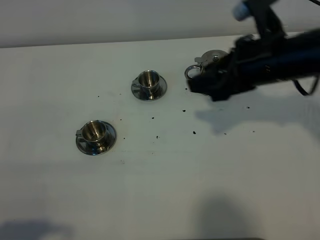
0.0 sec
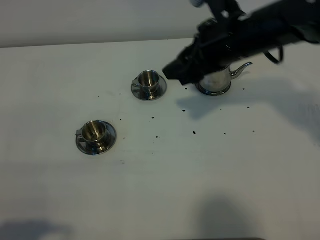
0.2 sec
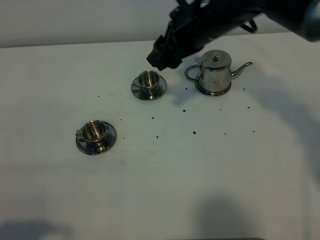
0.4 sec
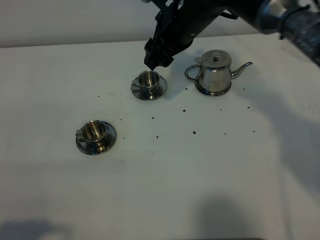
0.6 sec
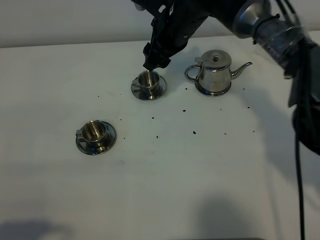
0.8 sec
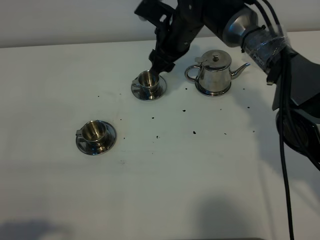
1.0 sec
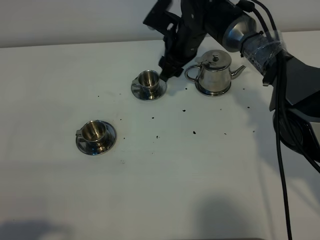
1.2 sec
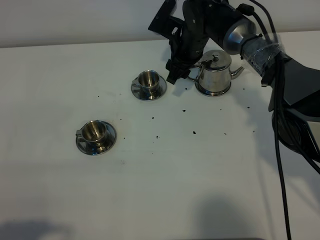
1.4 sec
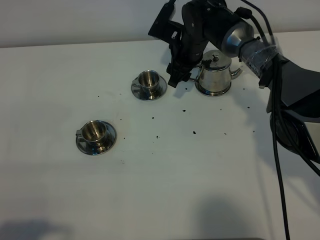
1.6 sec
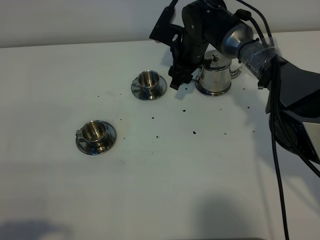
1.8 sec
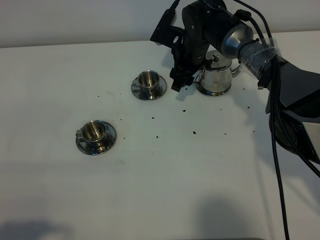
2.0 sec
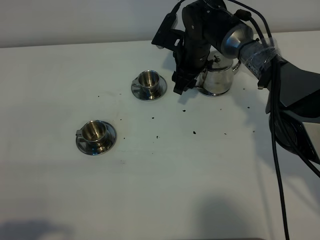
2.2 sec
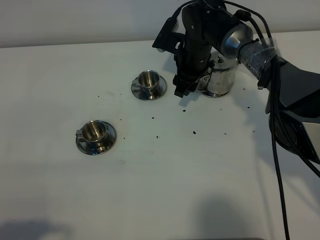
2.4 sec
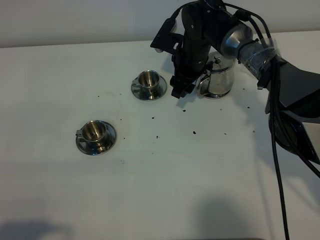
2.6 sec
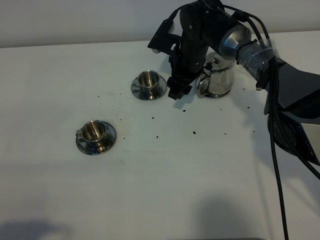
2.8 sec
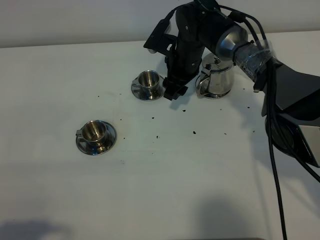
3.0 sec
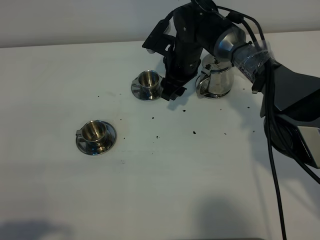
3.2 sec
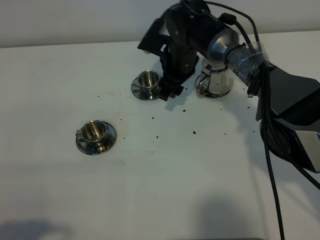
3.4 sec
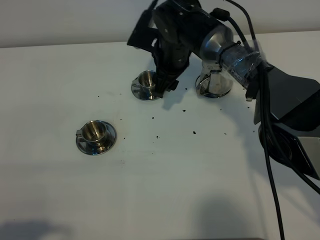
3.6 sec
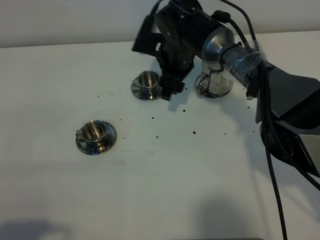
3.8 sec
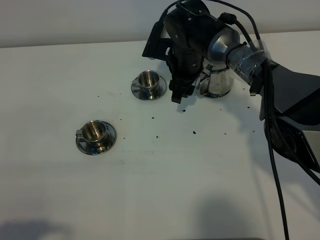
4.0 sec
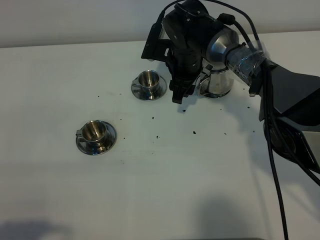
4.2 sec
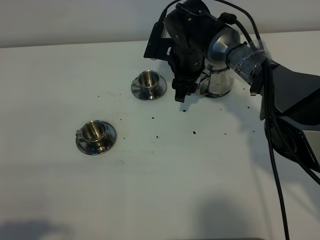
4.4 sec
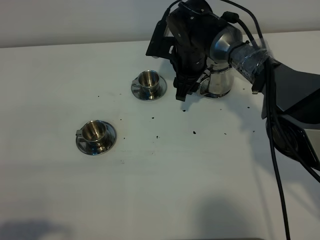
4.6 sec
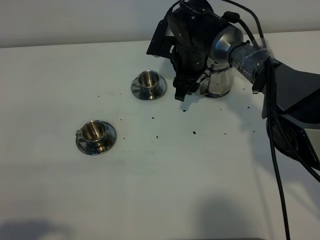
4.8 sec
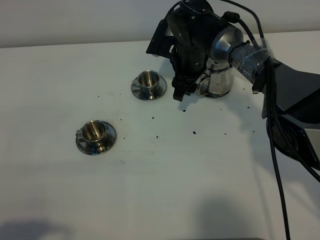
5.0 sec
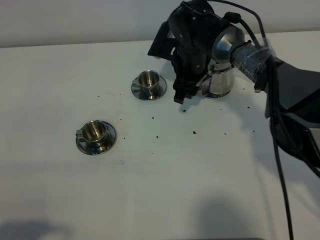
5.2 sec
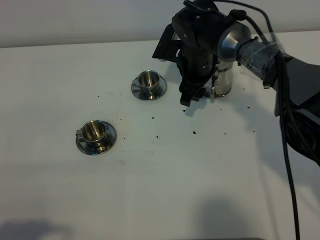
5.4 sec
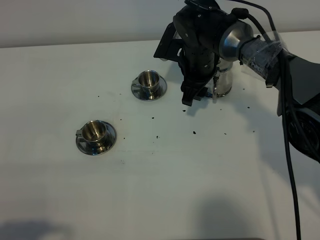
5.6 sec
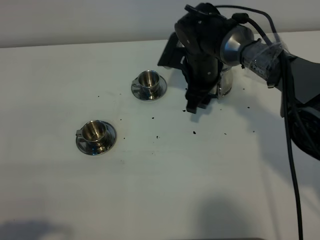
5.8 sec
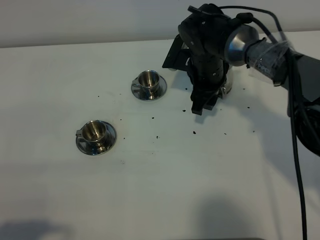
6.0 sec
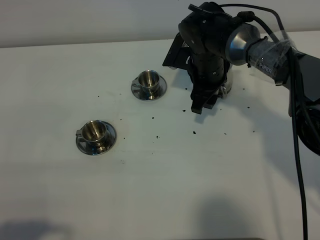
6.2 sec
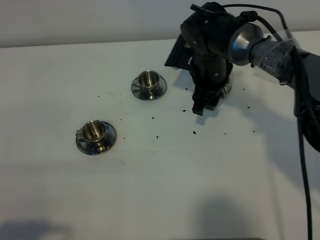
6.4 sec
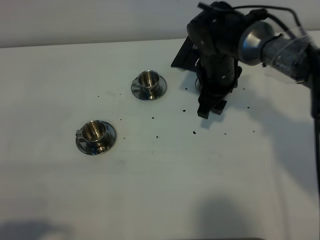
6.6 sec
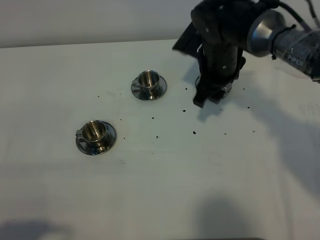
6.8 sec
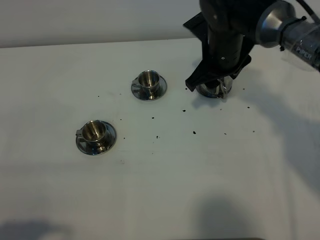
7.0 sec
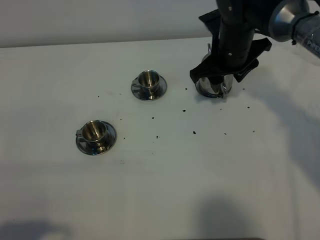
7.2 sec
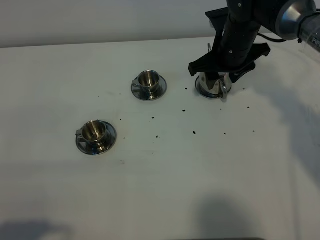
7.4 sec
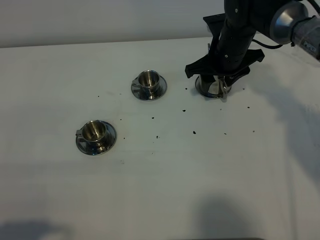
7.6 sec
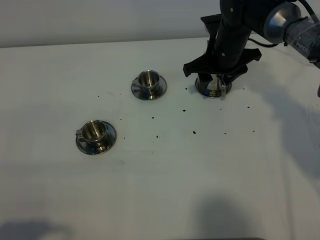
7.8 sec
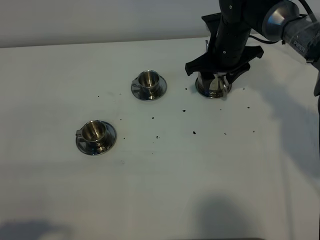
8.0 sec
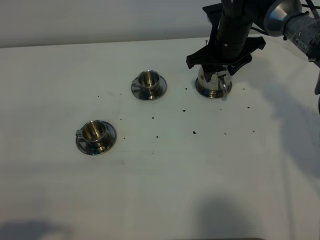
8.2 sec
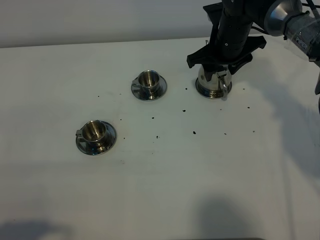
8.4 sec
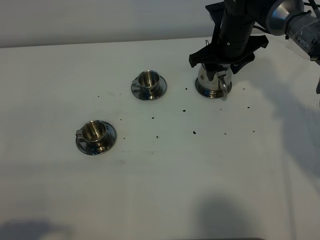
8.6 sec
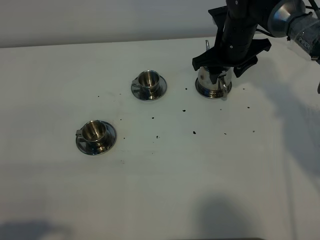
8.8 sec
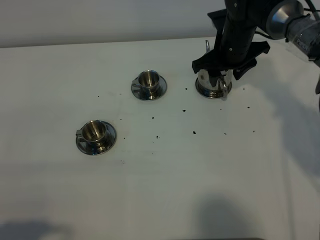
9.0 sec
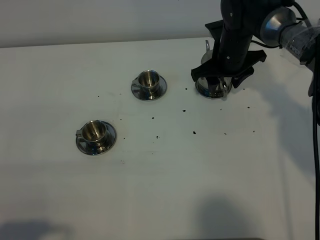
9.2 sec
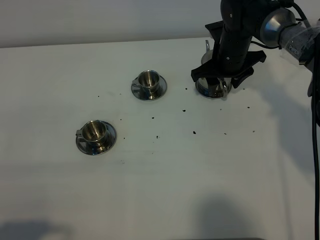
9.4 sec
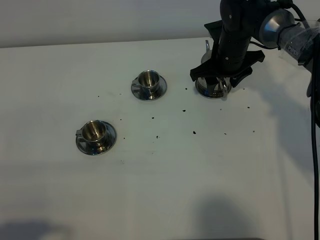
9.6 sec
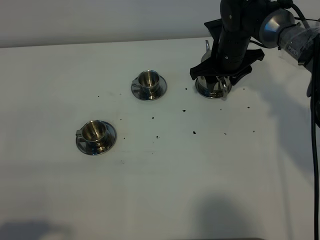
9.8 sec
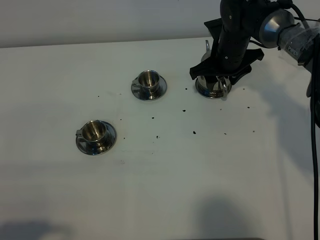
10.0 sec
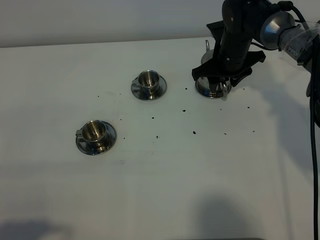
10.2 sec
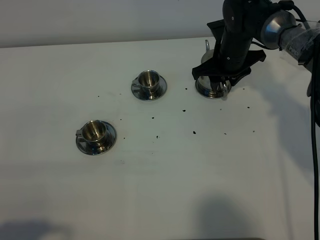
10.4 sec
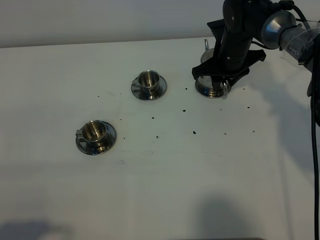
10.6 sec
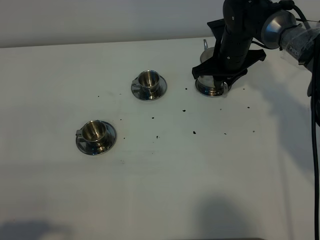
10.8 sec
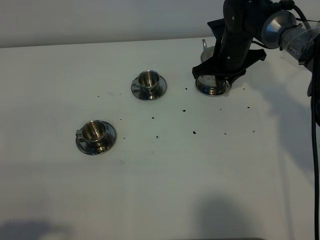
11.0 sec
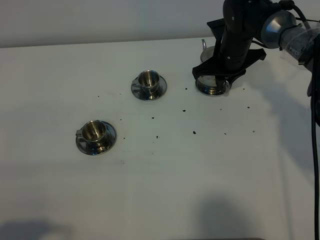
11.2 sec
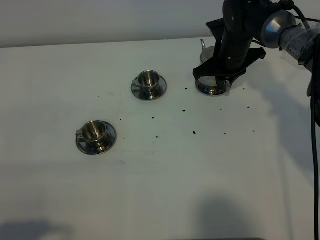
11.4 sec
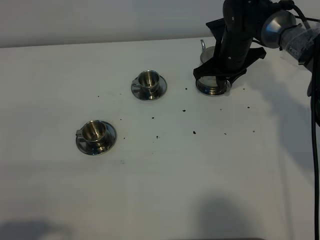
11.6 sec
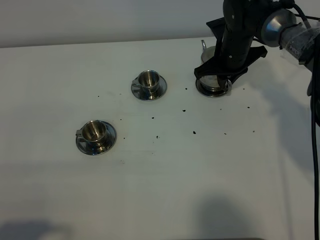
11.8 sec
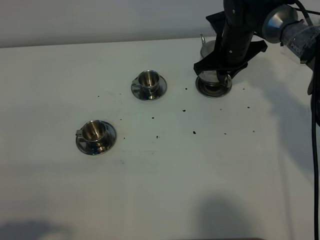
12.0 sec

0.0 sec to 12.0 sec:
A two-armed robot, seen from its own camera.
Task of the whole recording: grasp the stainless steel teapot and pour the tea into the two stainless steel teacups one by one, put the stainless steel teapot back in its original place.
Step, 0.0 sec to 11.8 sec: Pick up the teapot with the right gripper.
0.0 sec to 1.6 sec: The right gripper travels forward, downward and to the left by some 25 cm.
1.6 sec to 3.0 sec: The grippers make only small movements.
3.0 sec to 6.0 sec: There are only small adjustments of the grippers.
6.0 sec to 7.6 sec: The right gripper changes place by some 5 cm.
7.6 sec to 10.4 sec: There are only small adjustments of the grippers.
10.4 sec to 12.0 sec: The right gripper closes up.

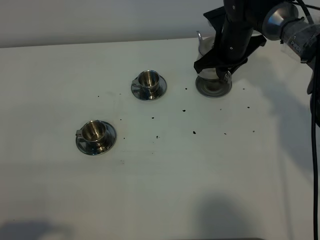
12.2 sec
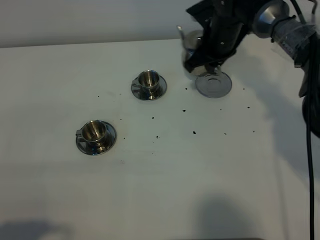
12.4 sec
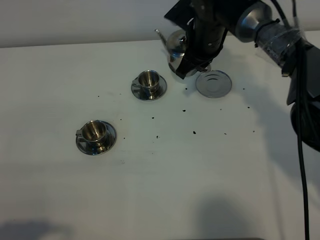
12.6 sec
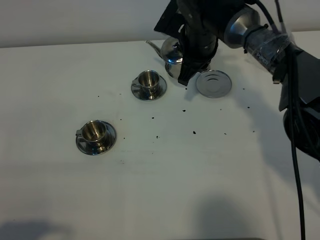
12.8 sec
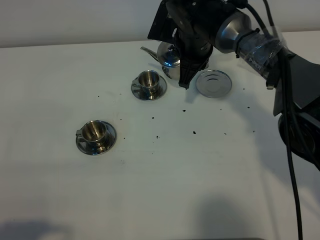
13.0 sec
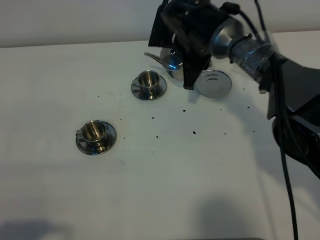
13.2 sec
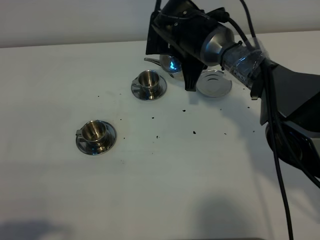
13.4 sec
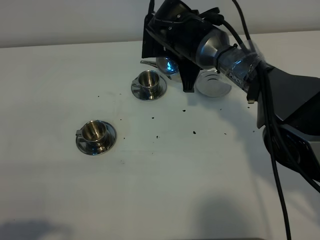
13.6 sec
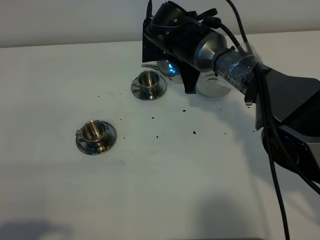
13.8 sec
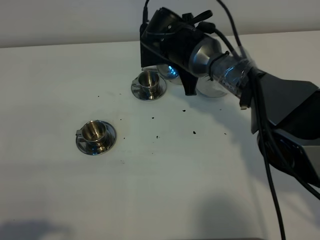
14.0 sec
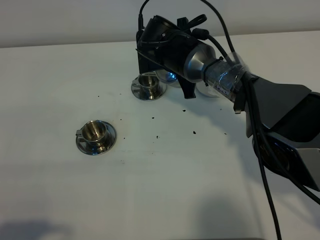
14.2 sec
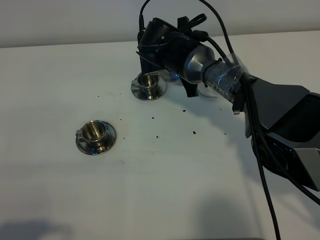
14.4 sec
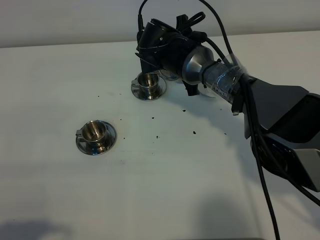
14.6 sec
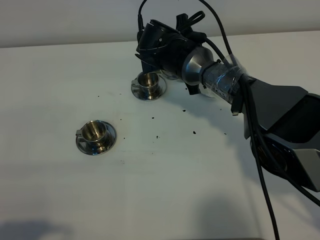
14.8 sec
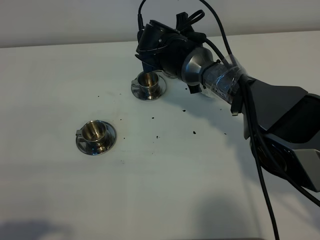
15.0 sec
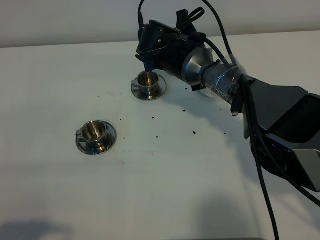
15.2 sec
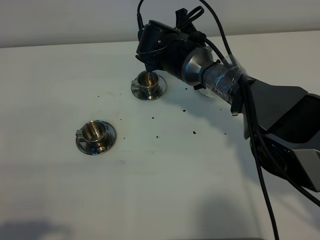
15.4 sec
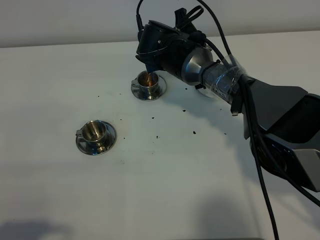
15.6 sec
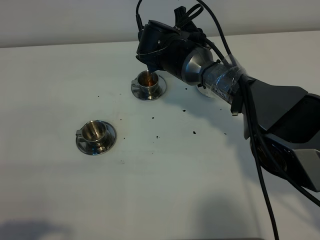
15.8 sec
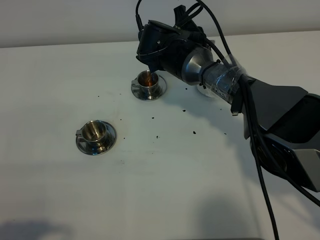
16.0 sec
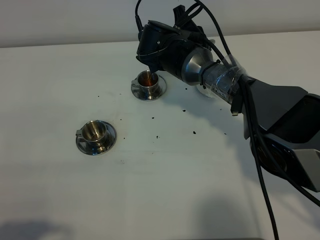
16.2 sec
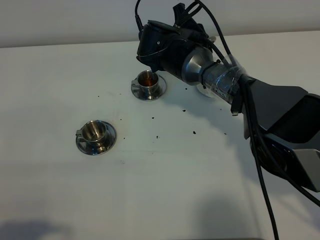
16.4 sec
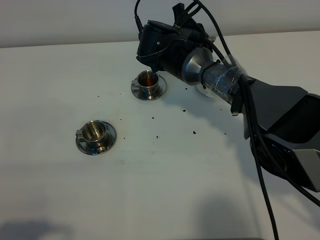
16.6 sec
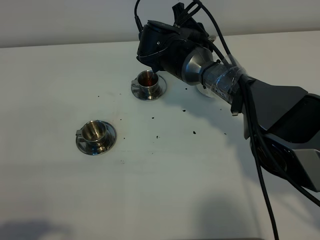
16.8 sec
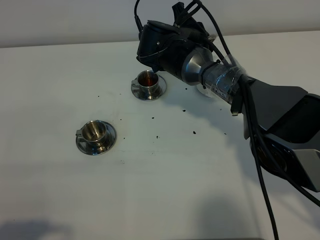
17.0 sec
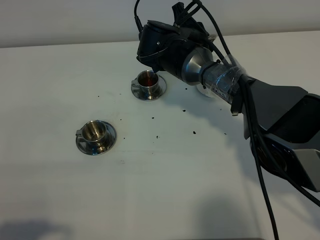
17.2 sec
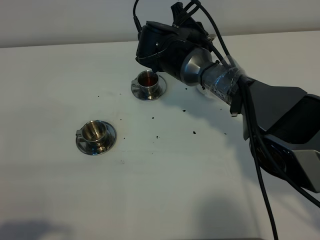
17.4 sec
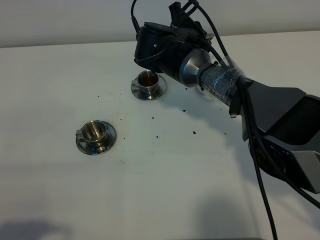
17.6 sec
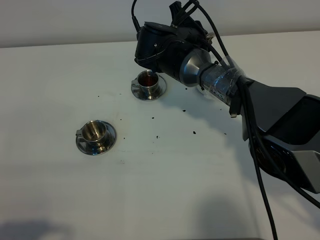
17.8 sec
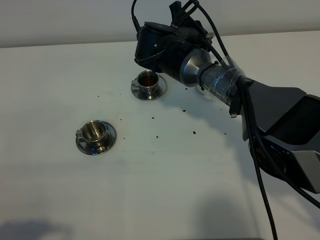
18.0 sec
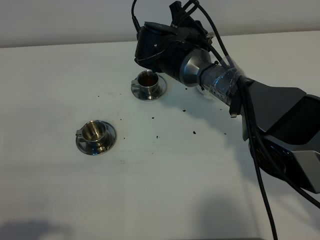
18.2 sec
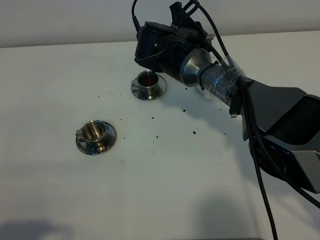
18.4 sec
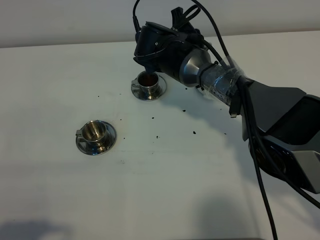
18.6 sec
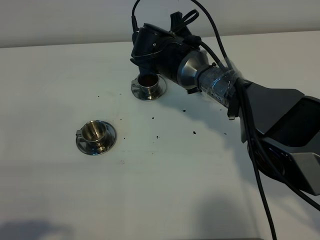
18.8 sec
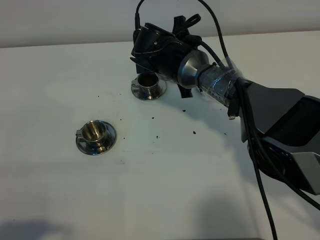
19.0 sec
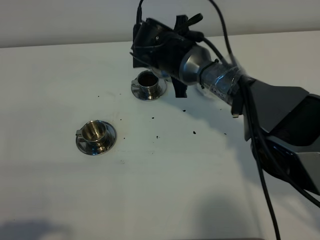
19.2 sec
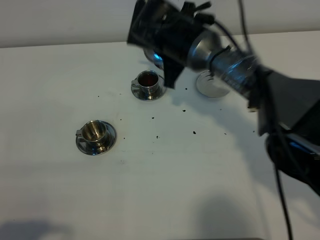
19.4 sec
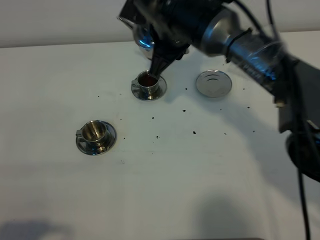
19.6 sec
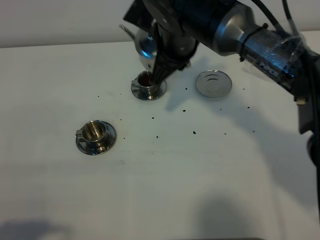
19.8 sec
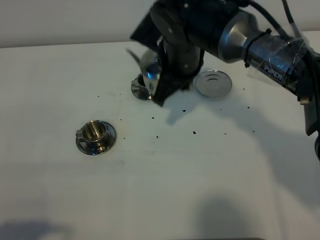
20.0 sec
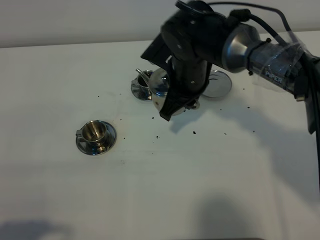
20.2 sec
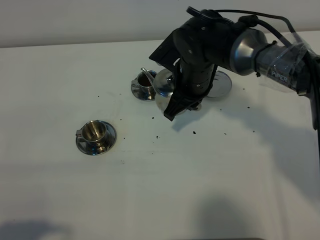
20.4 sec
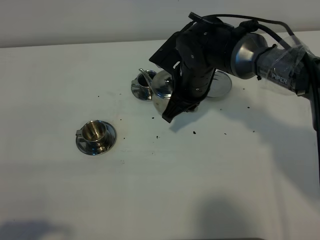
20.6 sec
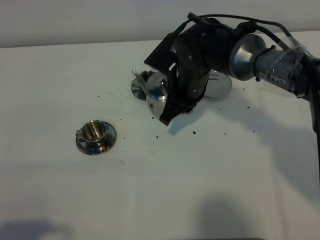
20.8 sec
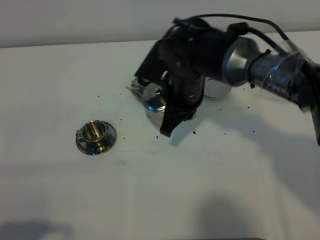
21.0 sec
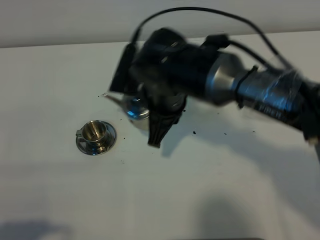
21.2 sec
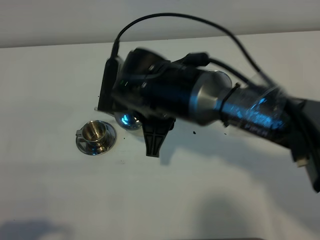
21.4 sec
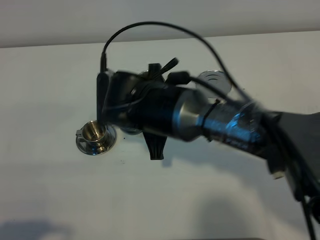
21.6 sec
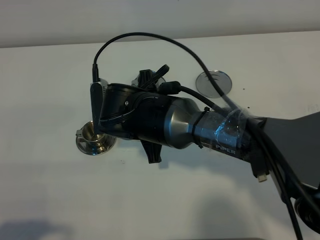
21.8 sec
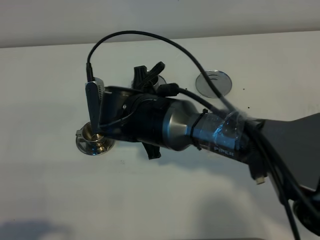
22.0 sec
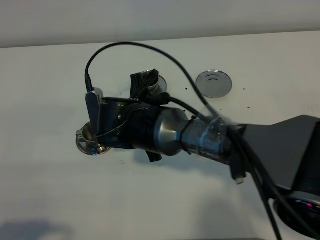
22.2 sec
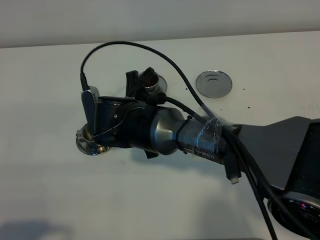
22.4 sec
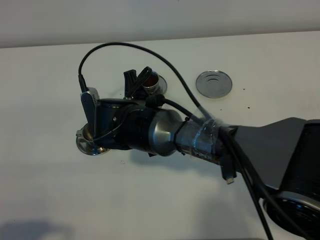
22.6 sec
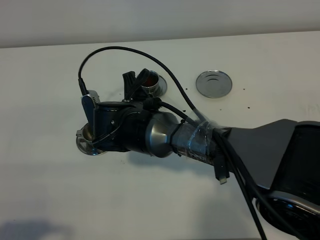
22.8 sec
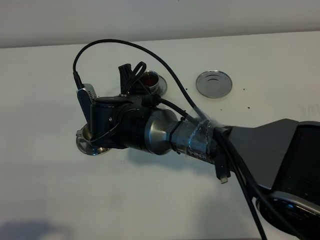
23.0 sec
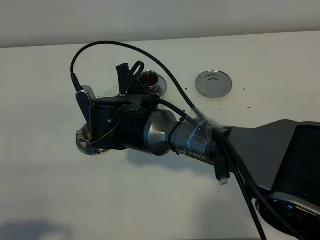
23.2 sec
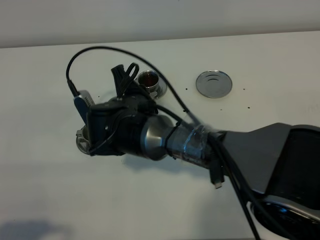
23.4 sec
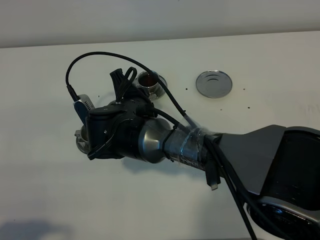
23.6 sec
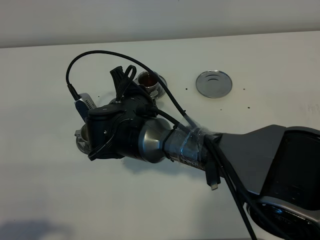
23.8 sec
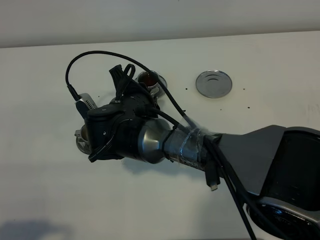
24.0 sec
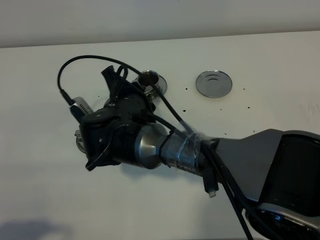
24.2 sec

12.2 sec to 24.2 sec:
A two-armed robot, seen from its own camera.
Task of the whole recording: grasp the stainless steel teapot and pour the tea into the two stainless steel teacups one by one, put the stainless steel teapot back in its original place.
12.2 sec to 13.8 sec: The right gripper is displaced to the left by roughly 10 cm.
13.8 sec to 15.2 sec: The grippers stay close to where they were, moving slightly.
15.2 sec to 16.6 sec: The grippers make only small movements.
16.6 sec to 18.2 sec: The two grippers keep their place.
18.2 sec to 19.8 sec: The right gripper moves upward and backward, some 10 cm.
19.8 sec to 21.2 sec: The right gripper shifts approximately 10 cm backward.
21.2 sec to 22.6 sec: The right gripper goes roughly 5 cm downward.
